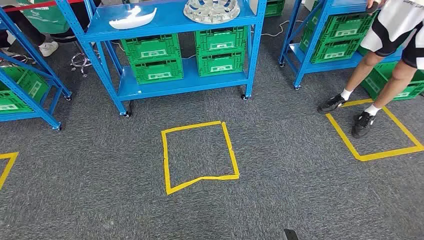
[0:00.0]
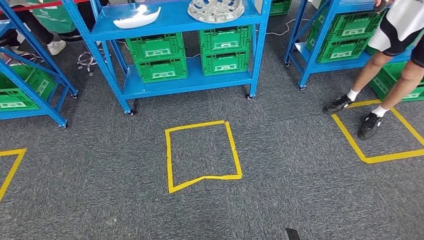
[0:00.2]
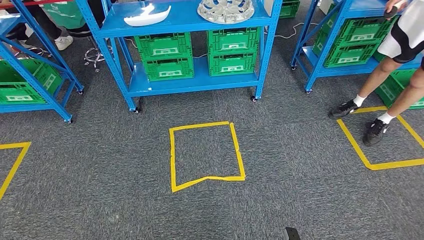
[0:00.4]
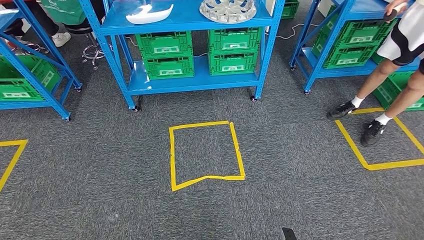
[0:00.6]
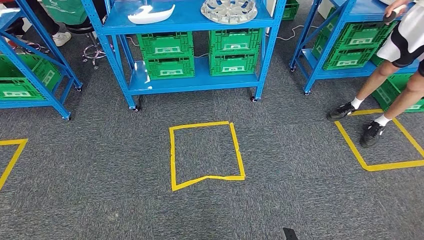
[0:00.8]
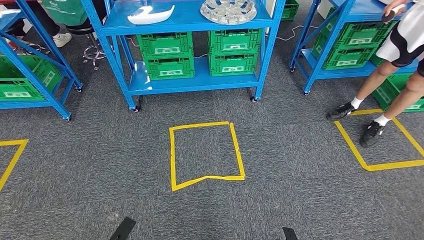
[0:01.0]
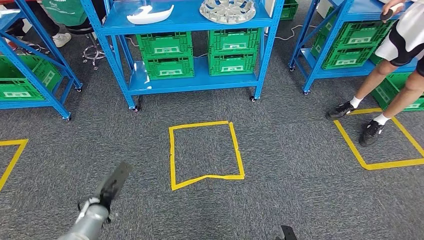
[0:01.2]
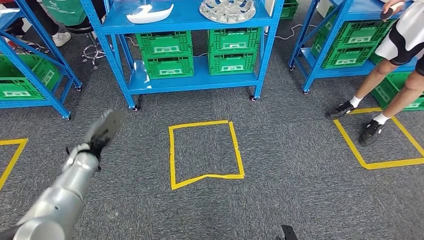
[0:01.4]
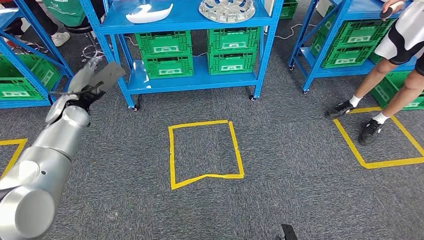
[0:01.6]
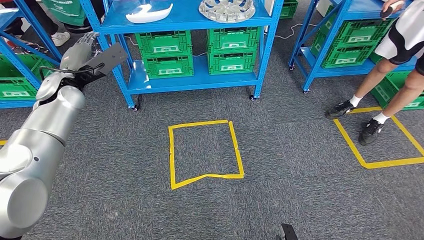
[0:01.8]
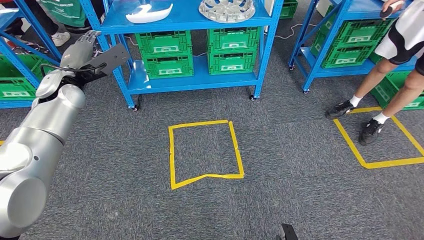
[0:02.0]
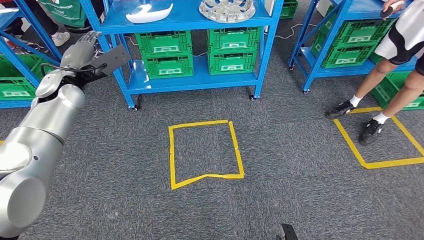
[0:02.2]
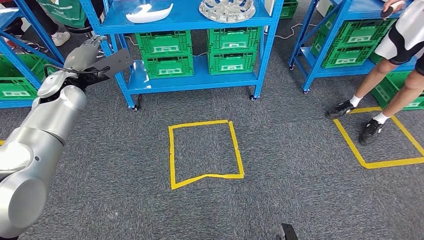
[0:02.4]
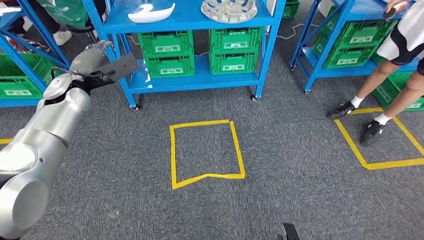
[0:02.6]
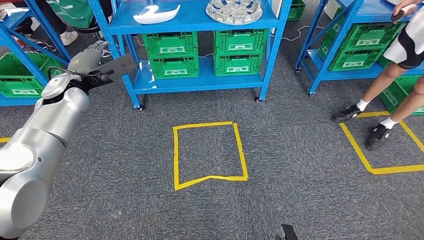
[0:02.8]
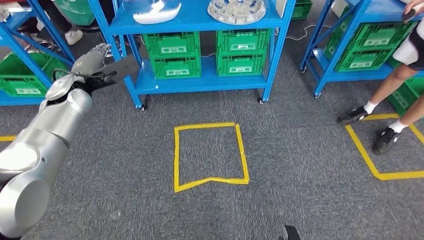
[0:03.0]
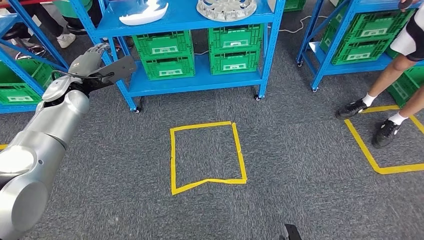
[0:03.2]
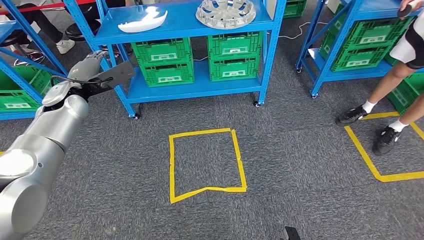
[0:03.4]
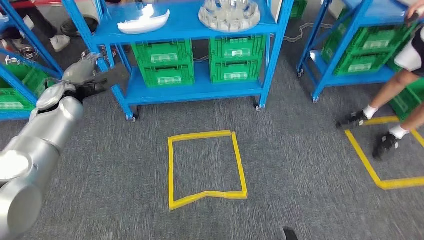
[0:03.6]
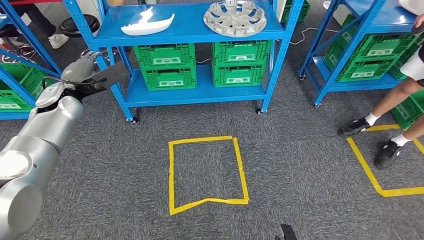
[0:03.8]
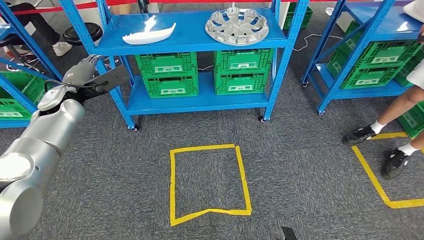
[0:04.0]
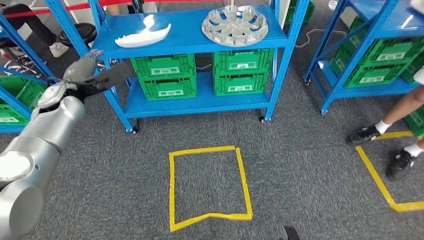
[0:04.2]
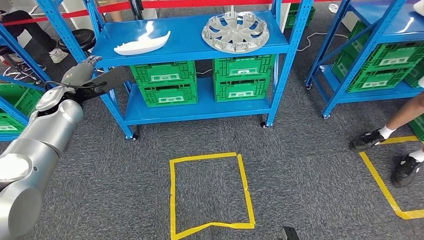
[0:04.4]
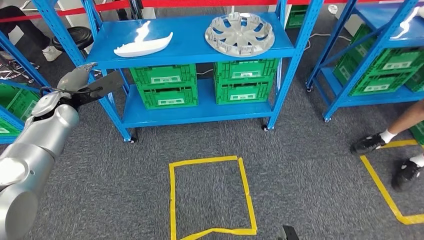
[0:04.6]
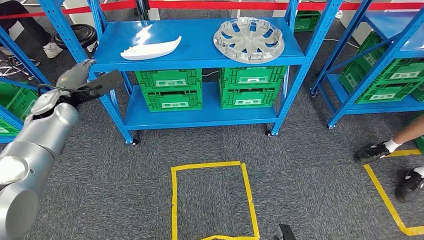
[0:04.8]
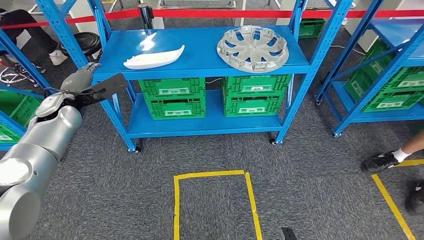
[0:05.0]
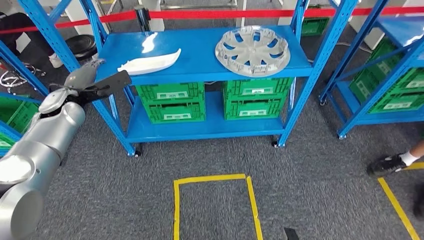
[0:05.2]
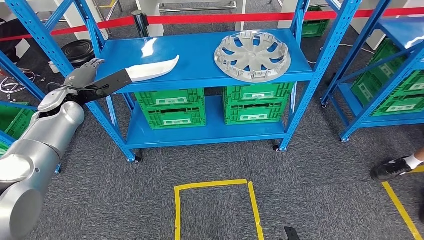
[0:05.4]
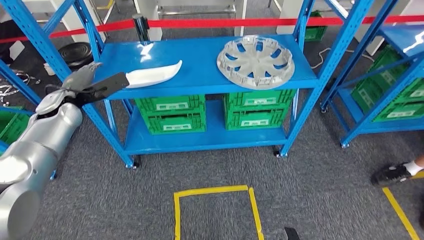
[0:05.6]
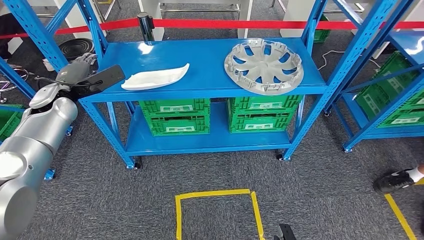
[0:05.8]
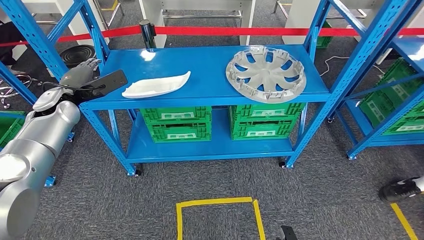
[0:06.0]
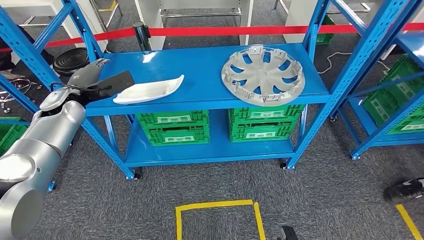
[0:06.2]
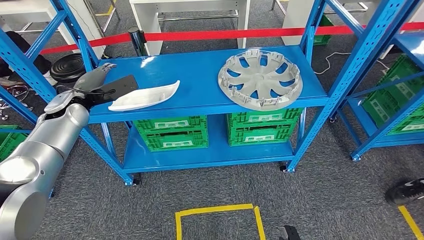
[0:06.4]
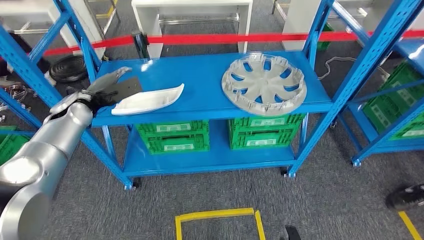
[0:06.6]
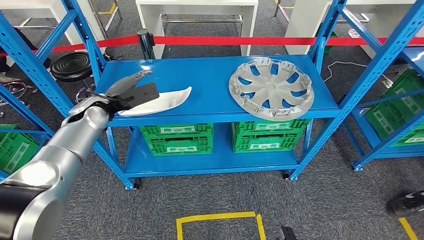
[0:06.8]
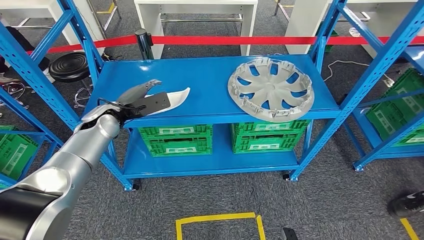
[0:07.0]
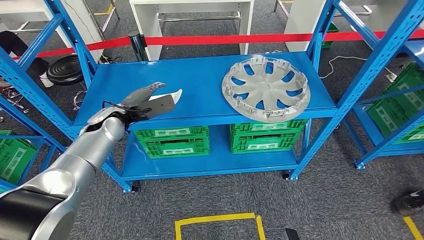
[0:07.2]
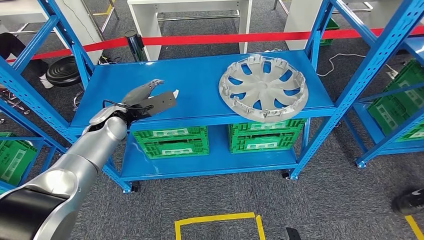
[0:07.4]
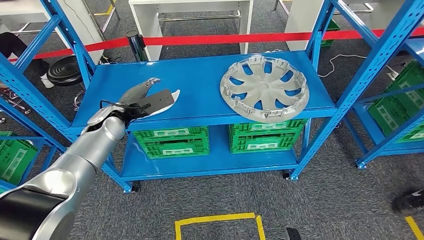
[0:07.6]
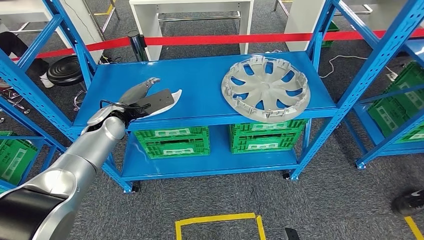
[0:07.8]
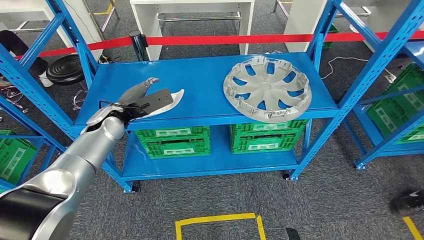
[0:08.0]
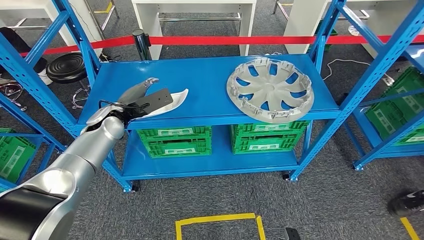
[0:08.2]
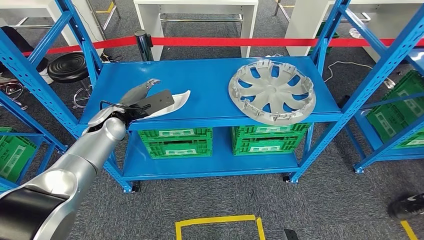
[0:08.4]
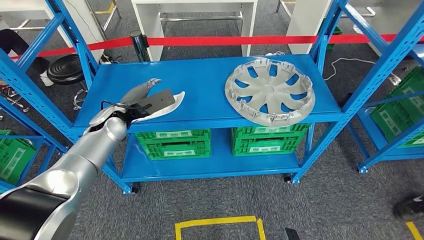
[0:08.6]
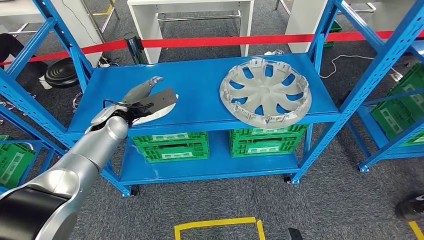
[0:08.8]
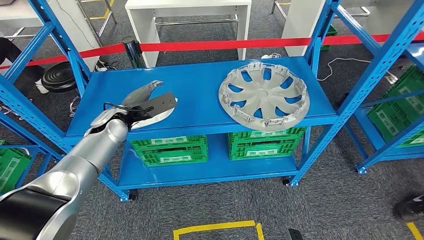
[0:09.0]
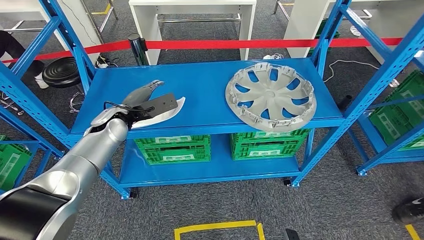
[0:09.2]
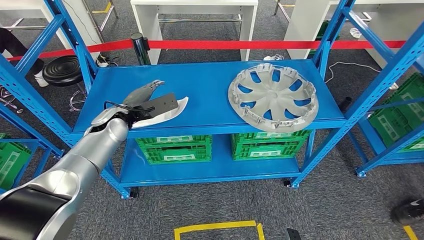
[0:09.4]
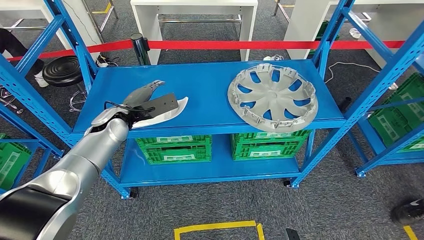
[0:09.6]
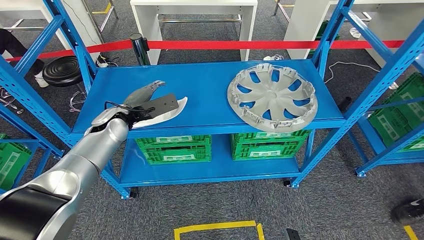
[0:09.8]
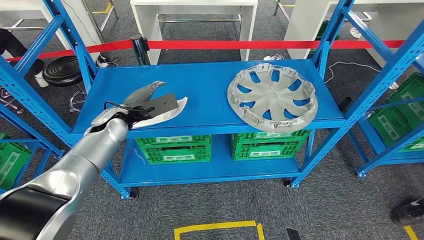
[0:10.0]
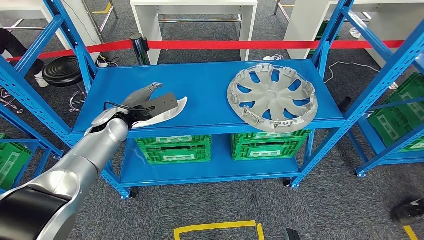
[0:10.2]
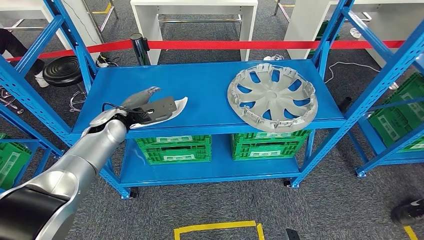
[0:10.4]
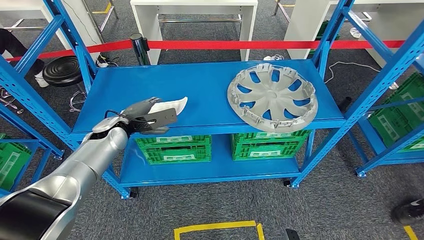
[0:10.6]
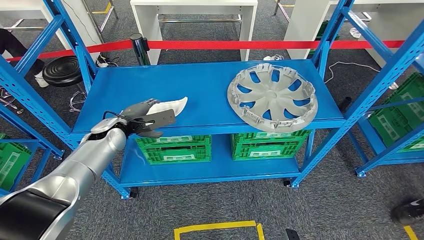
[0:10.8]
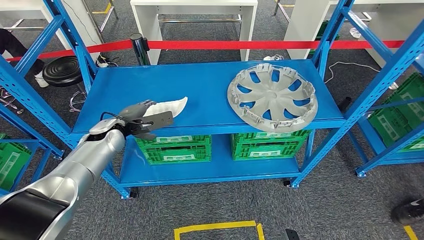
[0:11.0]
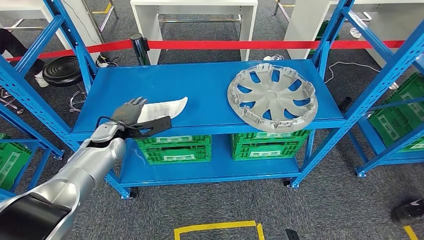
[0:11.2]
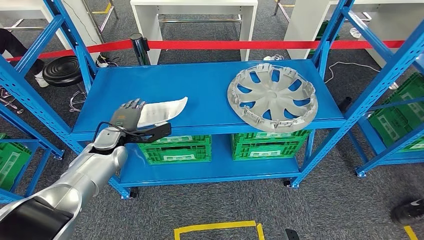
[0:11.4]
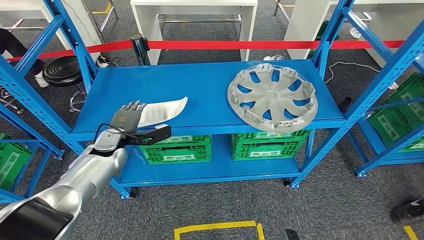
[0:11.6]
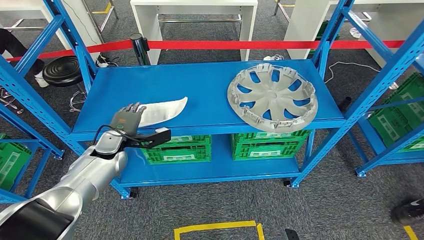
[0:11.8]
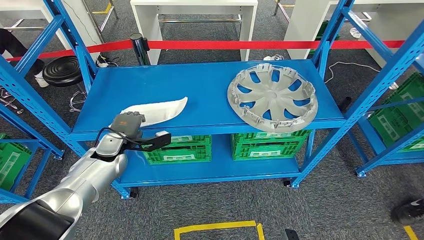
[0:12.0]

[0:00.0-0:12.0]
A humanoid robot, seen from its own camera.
0:10.4 to 0:12.0: The left hand travels downward by some 10 cm.

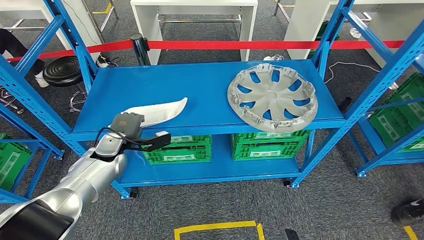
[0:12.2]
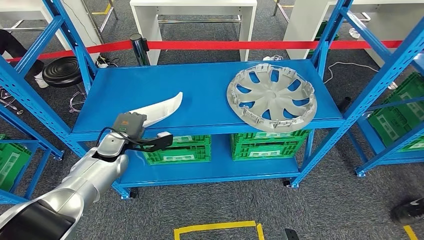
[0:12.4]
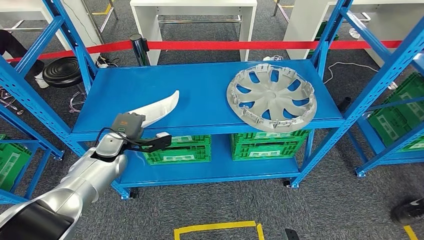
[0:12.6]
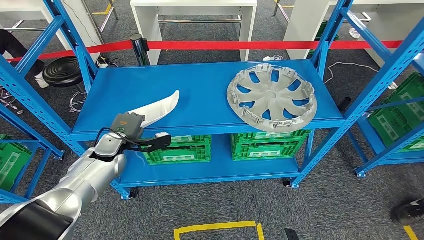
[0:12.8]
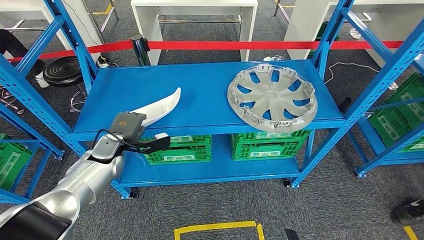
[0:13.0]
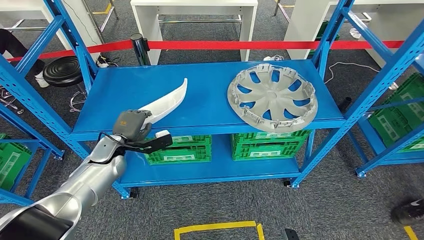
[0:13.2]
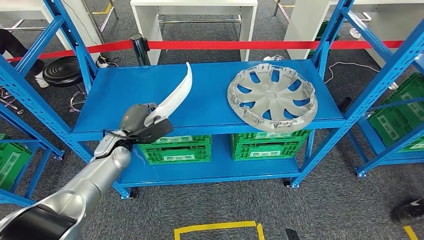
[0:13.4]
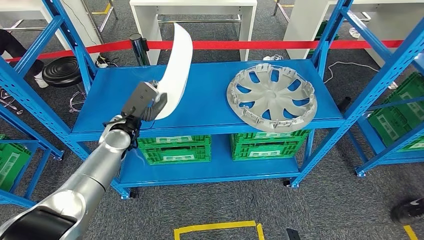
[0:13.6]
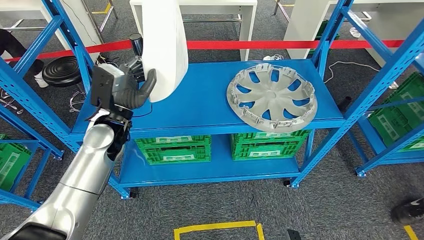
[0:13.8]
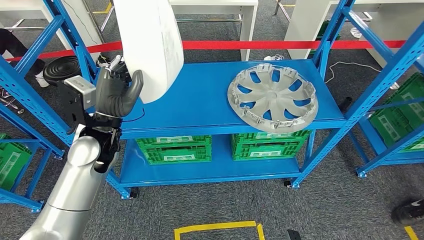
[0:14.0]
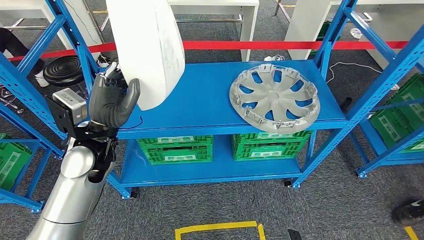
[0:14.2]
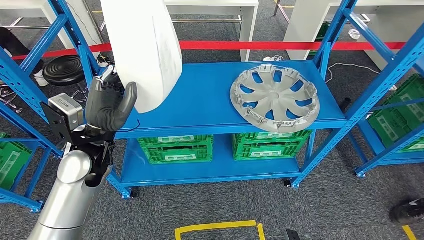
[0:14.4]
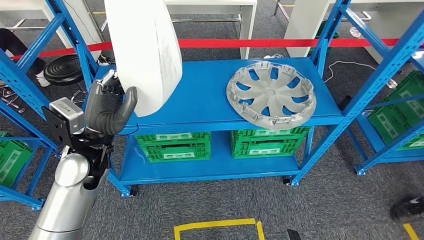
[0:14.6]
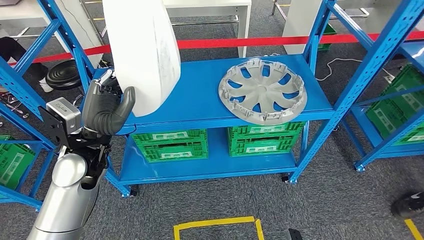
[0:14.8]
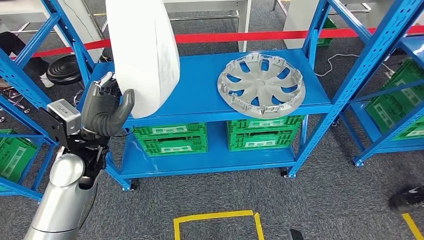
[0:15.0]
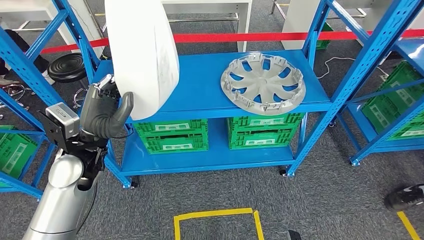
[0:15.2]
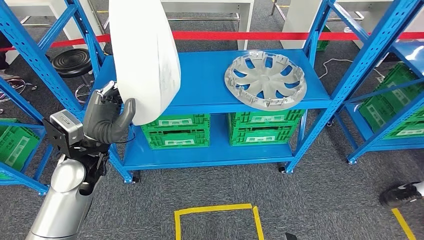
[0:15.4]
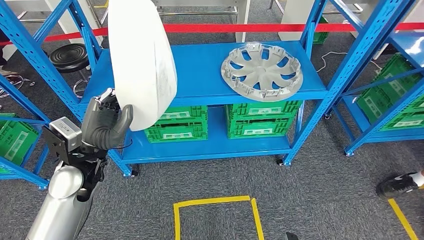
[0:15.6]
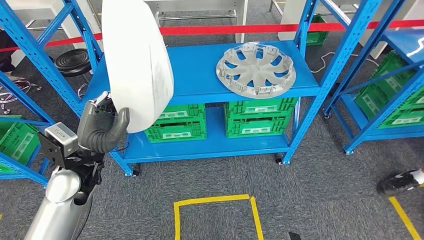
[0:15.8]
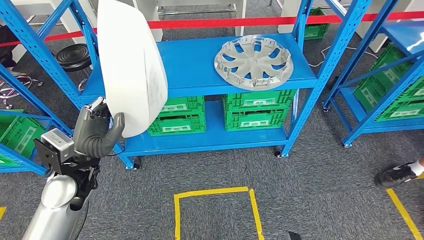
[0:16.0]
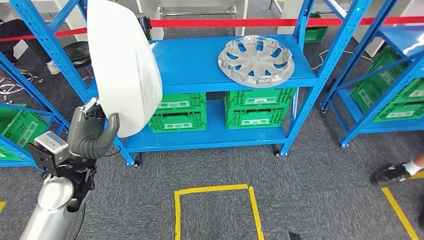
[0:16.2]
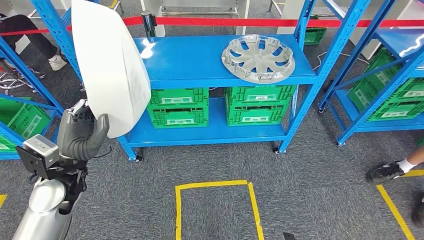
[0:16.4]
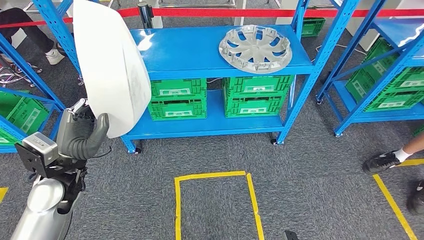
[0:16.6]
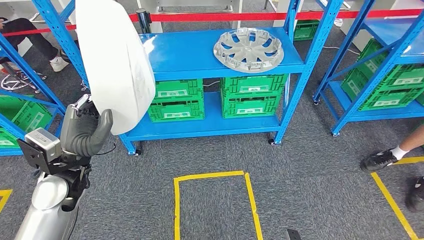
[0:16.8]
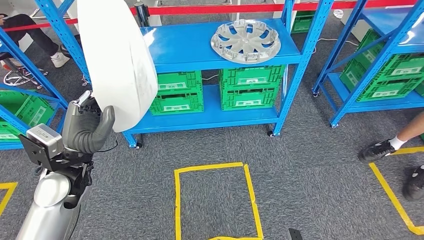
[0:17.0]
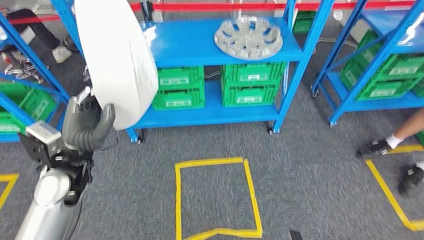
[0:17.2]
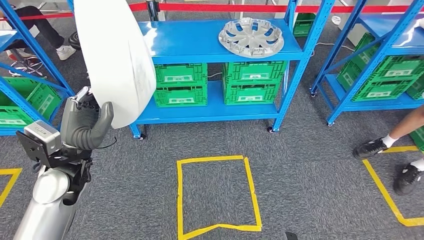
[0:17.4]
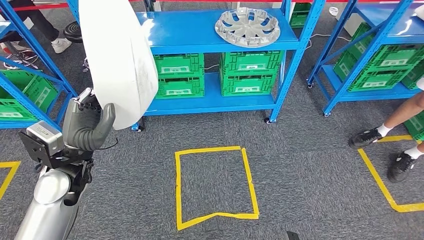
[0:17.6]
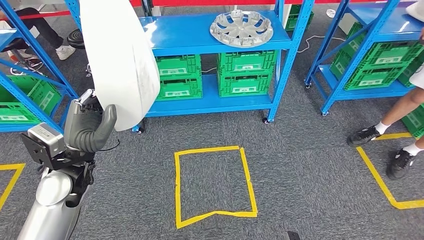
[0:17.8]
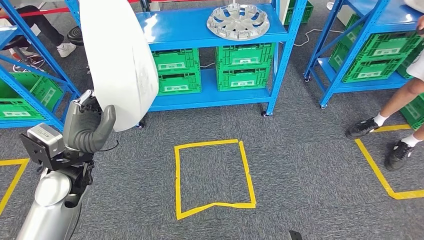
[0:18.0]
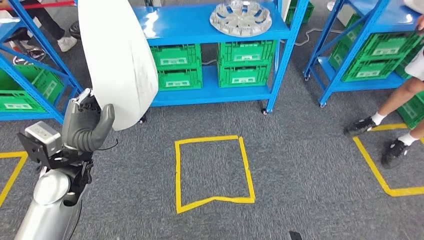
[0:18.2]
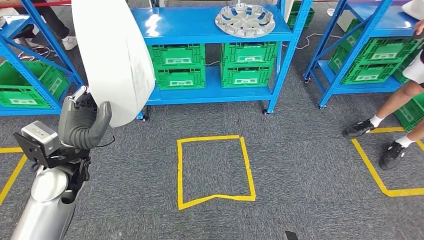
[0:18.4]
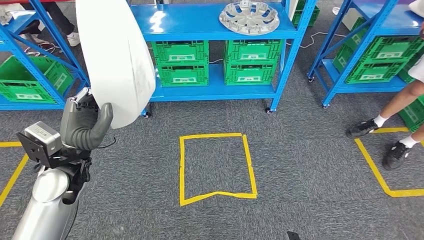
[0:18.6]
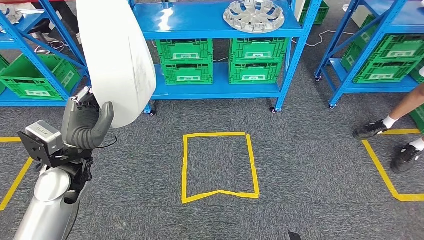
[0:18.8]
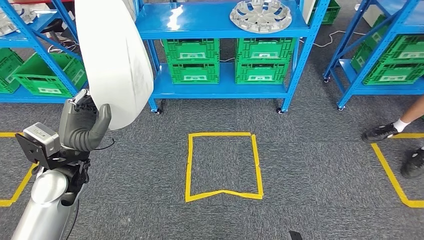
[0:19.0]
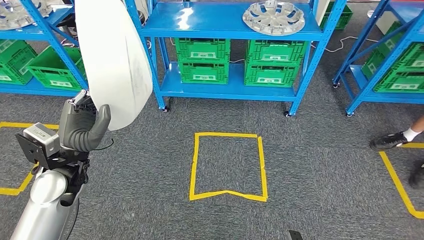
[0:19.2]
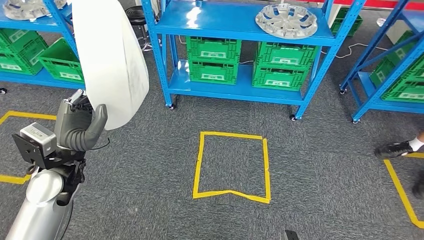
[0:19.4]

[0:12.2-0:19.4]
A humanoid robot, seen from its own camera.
Step, 0:12.2 to 0:14.2: Pick up the small parts from the shelf.
0:12.2 to 0:13.6: The left hand heads upward, covering some 5 cm.
